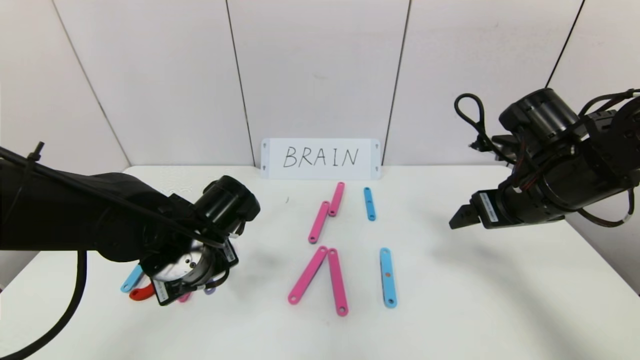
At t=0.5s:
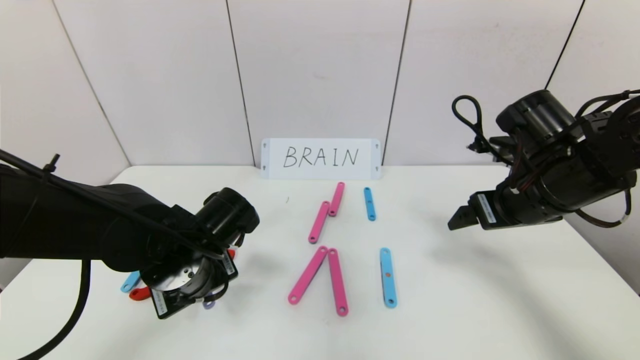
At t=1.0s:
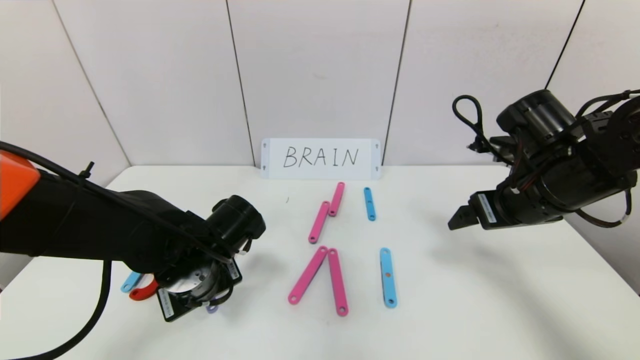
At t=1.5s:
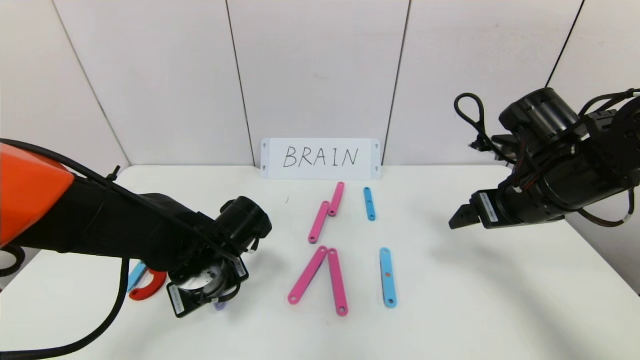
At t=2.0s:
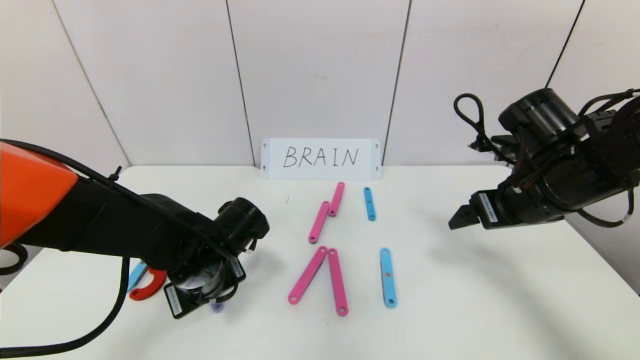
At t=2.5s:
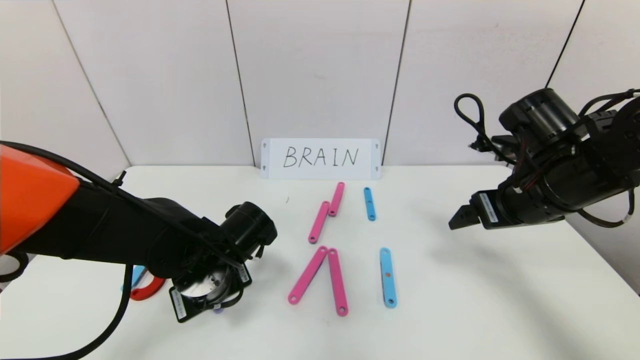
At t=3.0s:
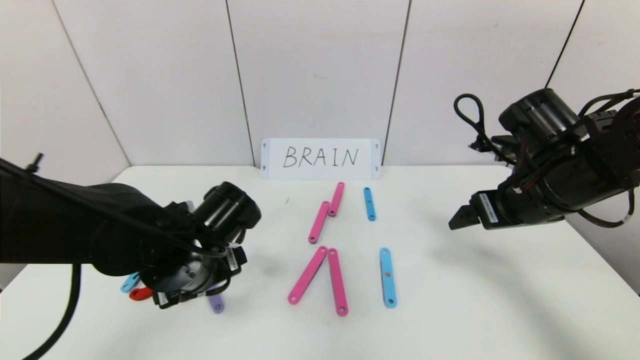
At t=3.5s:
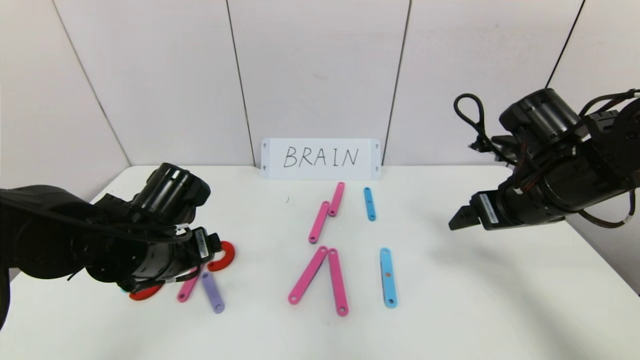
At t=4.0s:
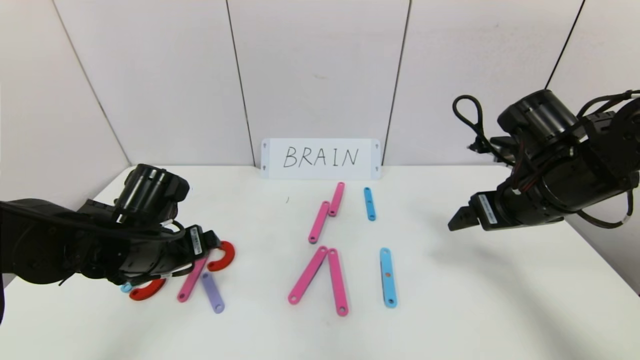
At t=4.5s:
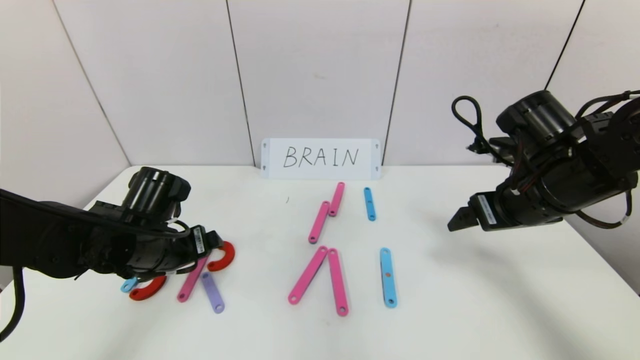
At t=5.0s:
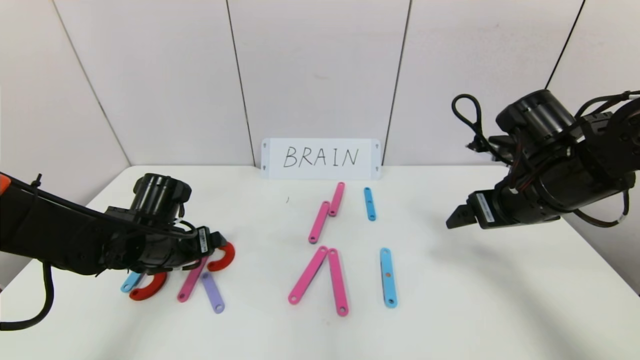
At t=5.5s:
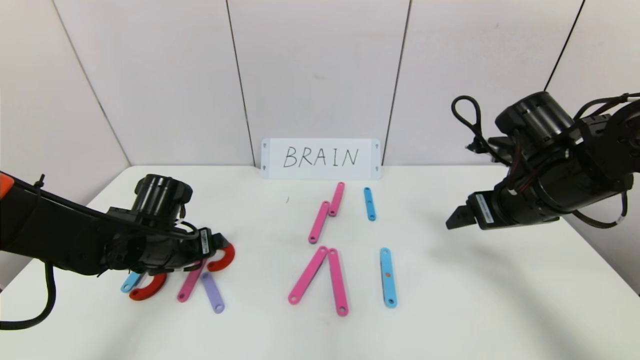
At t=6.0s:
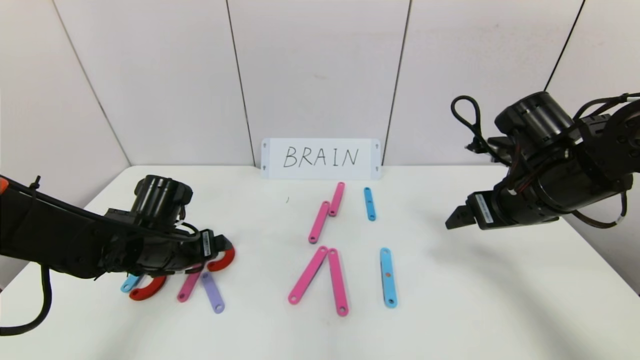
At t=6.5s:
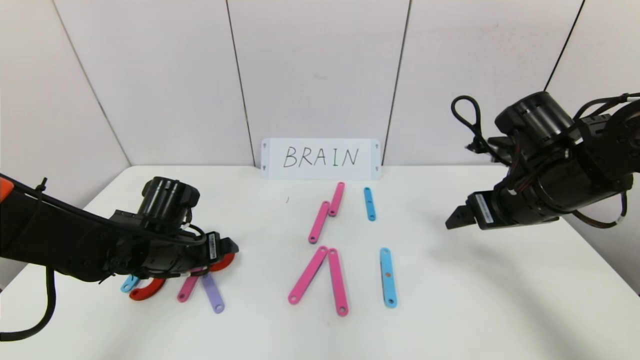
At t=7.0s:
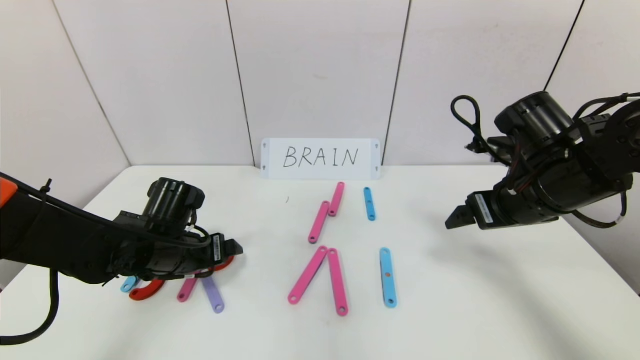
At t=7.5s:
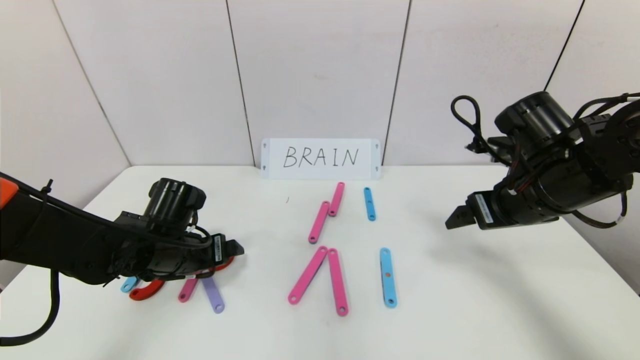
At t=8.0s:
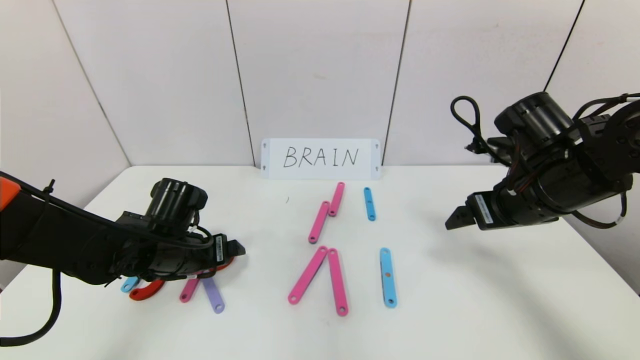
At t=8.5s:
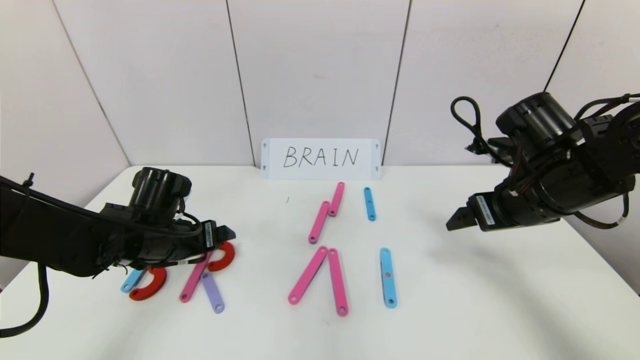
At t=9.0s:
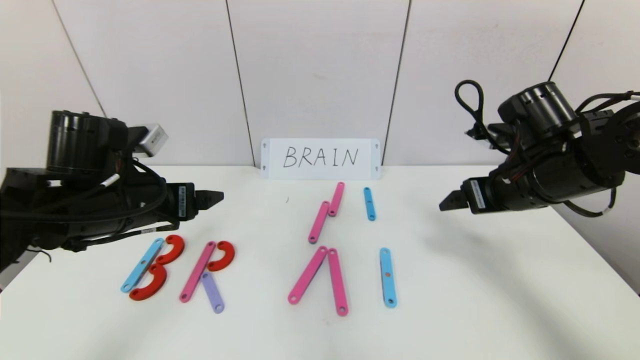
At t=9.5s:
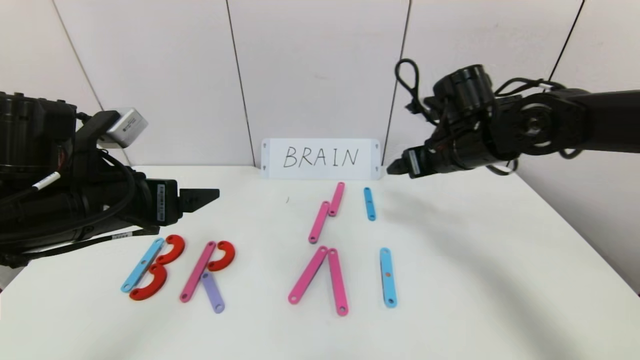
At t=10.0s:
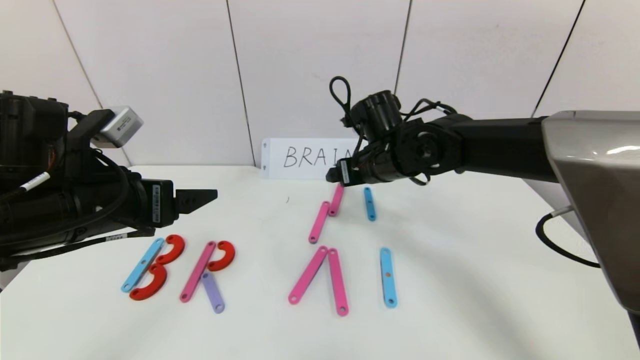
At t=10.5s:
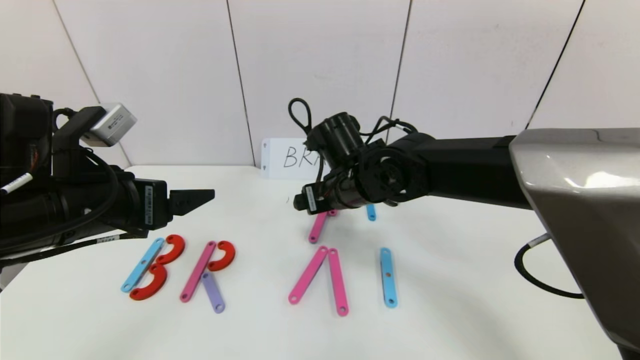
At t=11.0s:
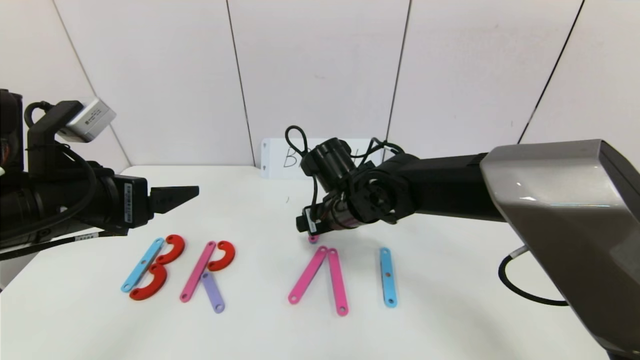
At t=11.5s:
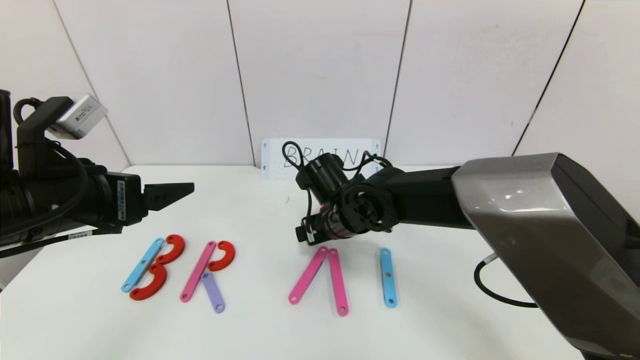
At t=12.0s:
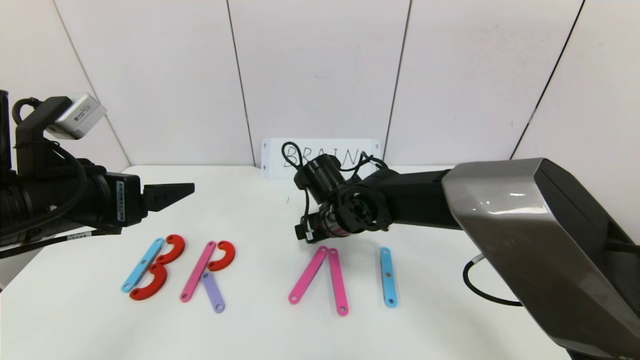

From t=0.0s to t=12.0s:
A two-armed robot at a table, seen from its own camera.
Task of the whole recording: rearrange the word baai as brain.
Step, from t=0.0s to t=2.5s: Place the character R between first character B and third character A.
From t=0.0s to t=2.0s: The grippers stay close to where they were, moving slightly.
From t=2.0s to t=4.0s: The left gripper heads to the left, covering some 5 cm, and opens.
From t=4.0s to t=6.0s: The left gripper ends up roughly 5 cm from where it was.
From t=6.0s to t=8.0s: The grippers move only a little.
From t=8.0s to t=10.0s: The right gripper is displaced to the left and forward by approximately 20 cm, while the left gripper heads upward and backward, covering about 15 cm.
From t=10.0s to t=12.0s: The right gripper goes about 10 cm downward and to the left.

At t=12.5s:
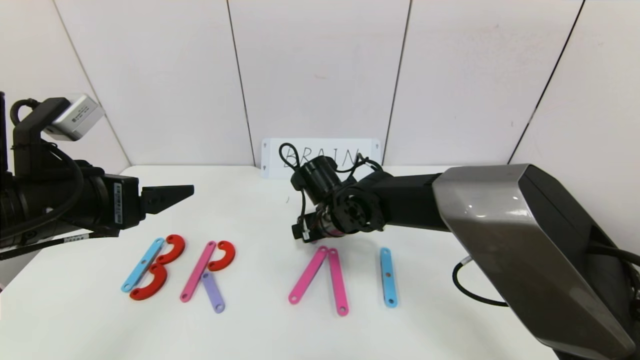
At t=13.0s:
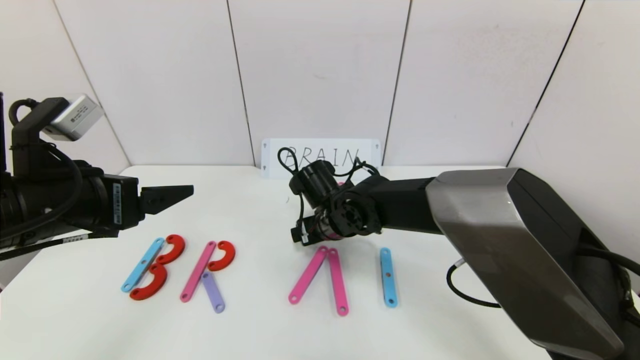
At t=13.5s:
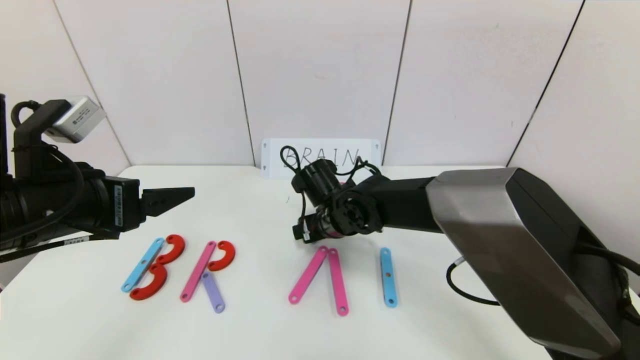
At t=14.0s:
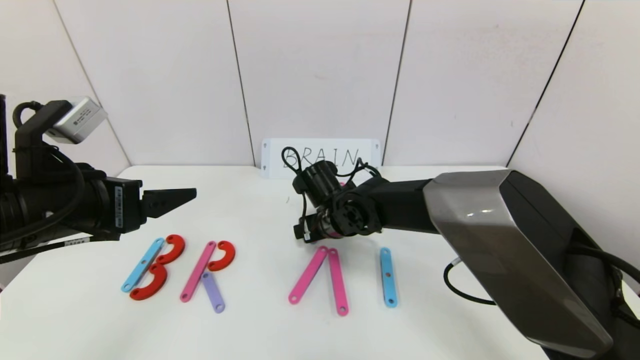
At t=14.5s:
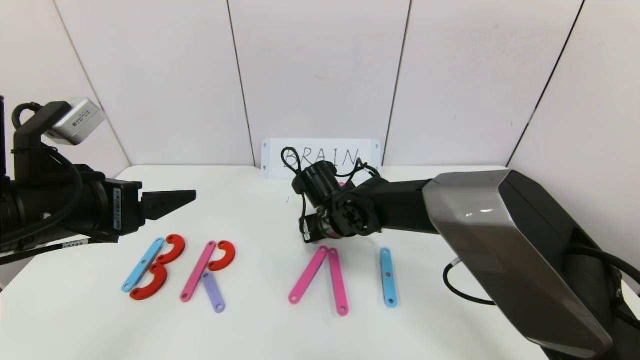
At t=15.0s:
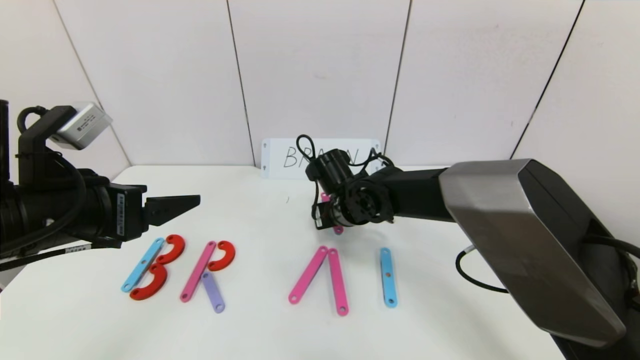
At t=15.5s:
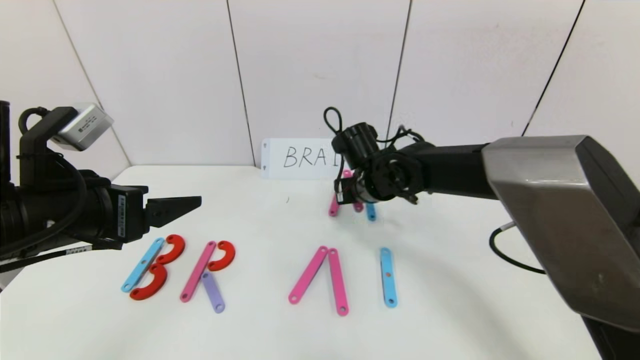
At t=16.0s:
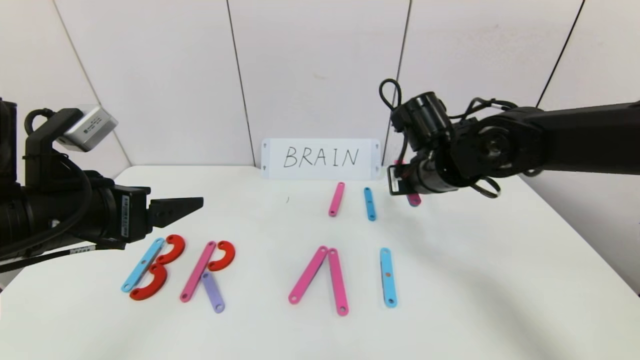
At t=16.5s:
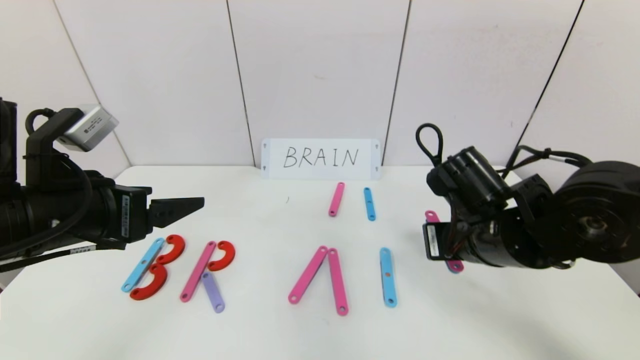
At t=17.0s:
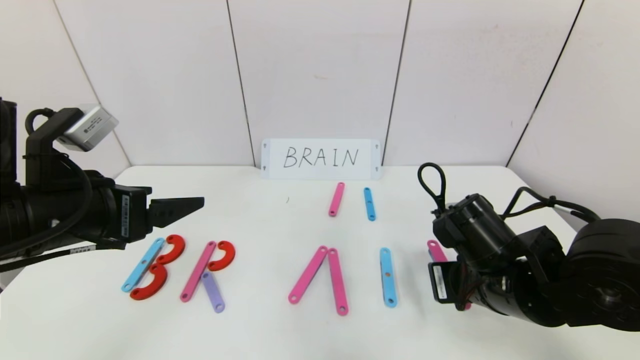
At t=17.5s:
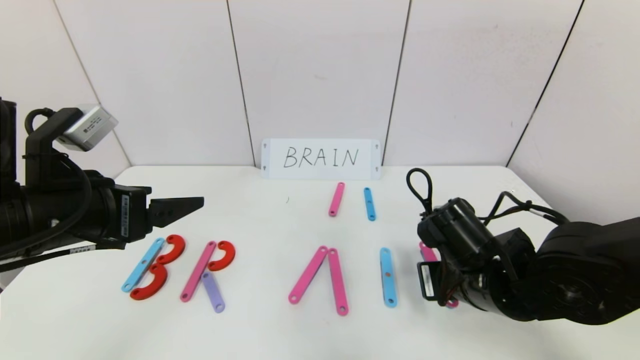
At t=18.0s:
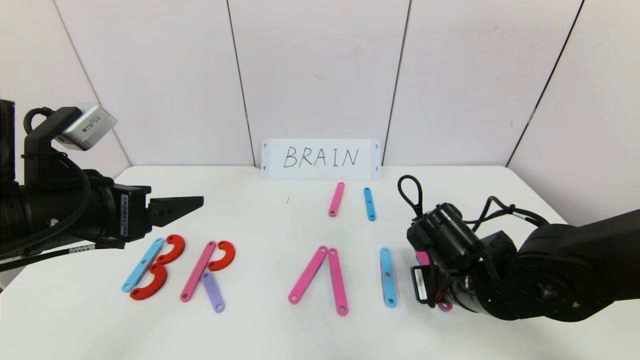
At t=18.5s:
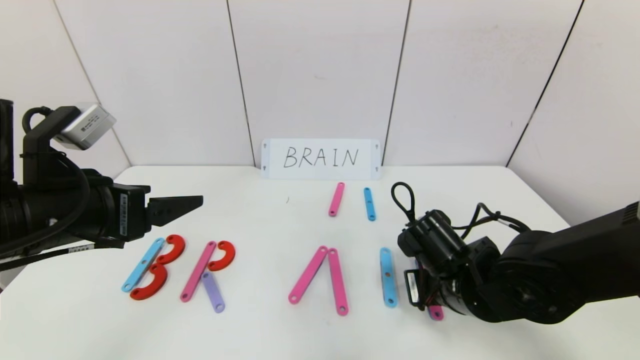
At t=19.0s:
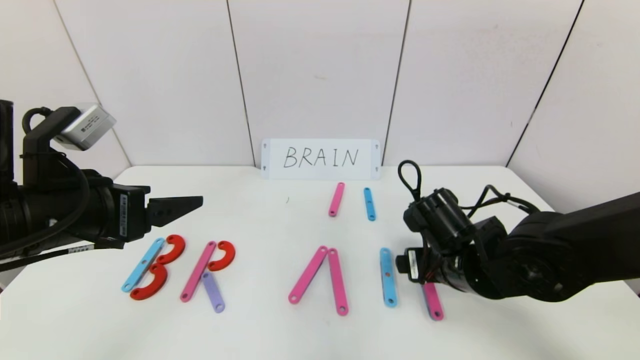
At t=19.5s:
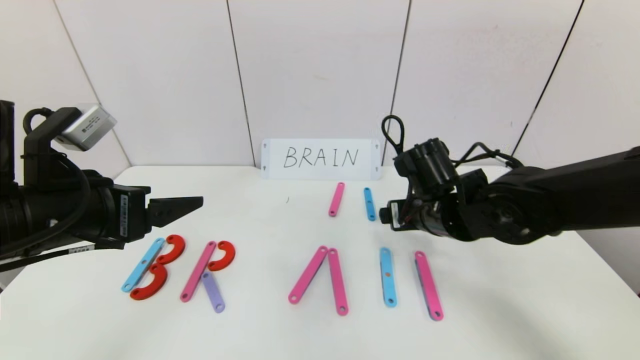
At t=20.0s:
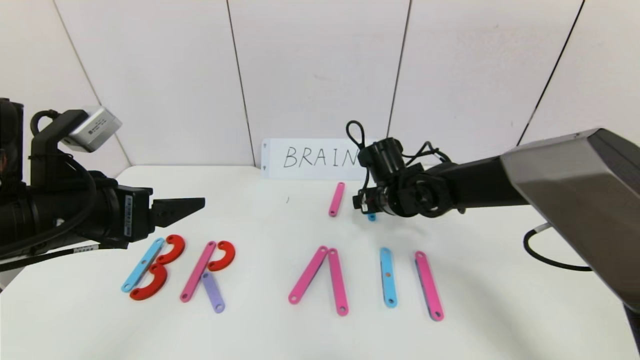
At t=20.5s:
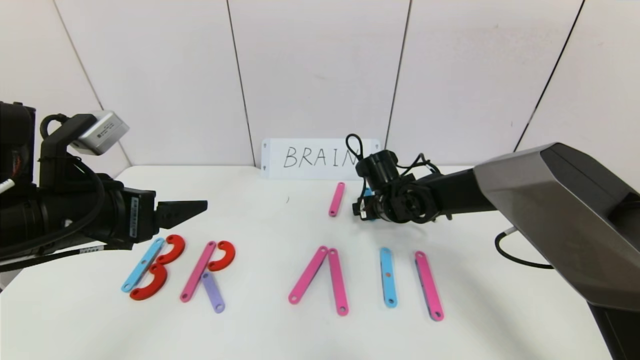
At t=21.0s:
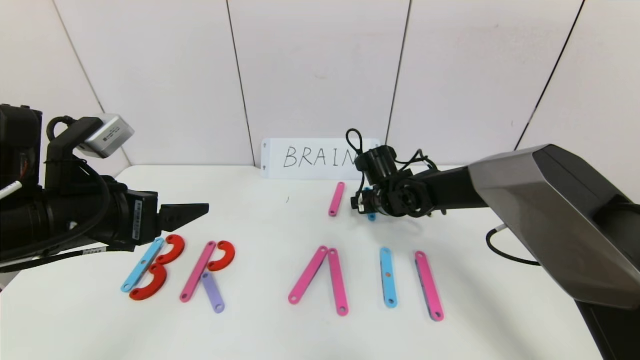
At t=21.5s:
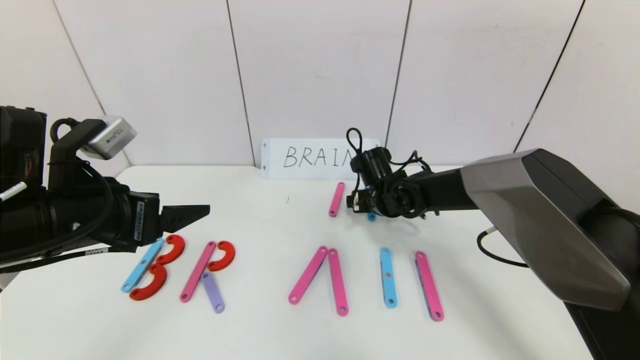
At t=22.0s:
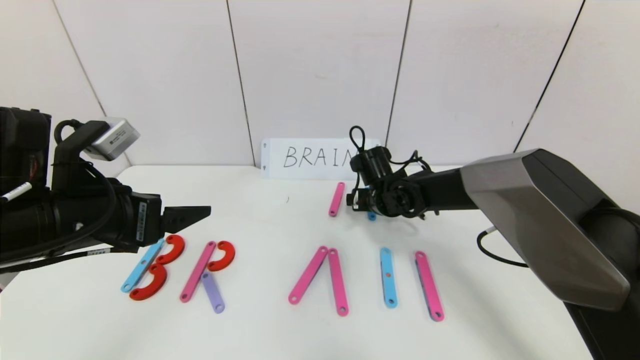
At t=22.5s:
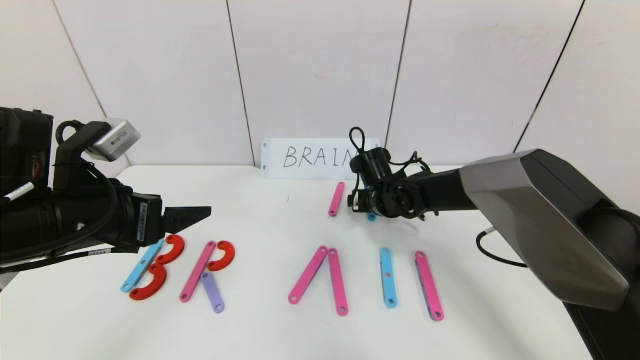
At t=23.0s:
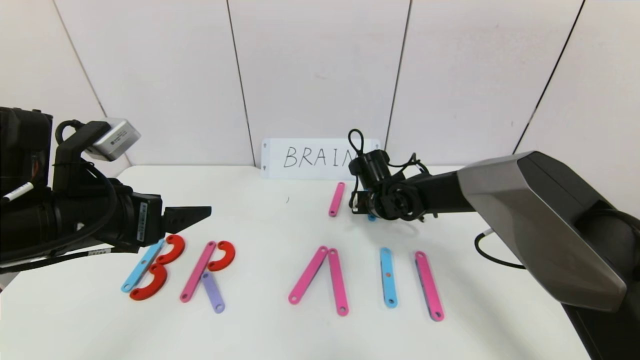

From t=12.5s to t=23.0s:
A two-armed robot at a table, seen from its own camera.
Task of the whole recording: rearrange the word baai as brain.
From t=12.5s to t=14.5s: The right gripper closes.
From t=14.5s to t=16.5s: The right gripper goes about 20 cm to the right, backward and upward.
From t=16.5s to t=19.0s: The right gripper goes approximately 5 cm downward, and opens up.
From t=19.0s to t=21.0s: The right gripper shifts some 15 cm forward.
From t=21.0s to t=23.0s: The right gripper closes.
